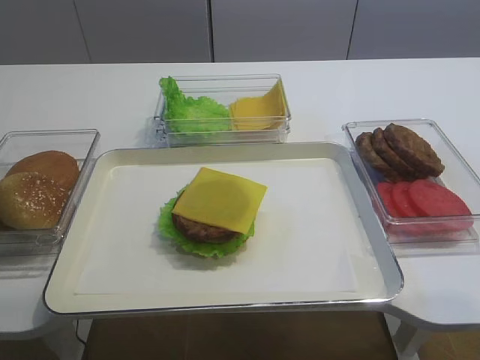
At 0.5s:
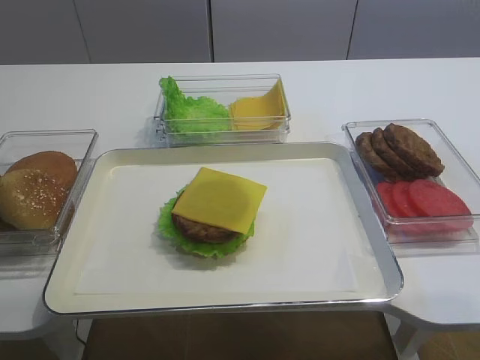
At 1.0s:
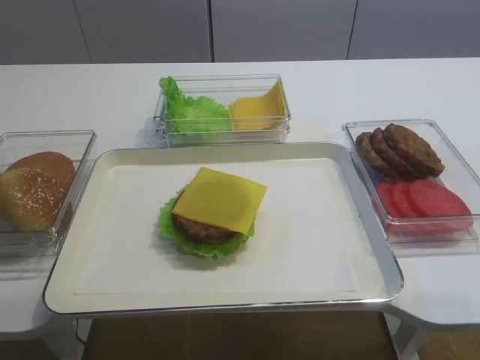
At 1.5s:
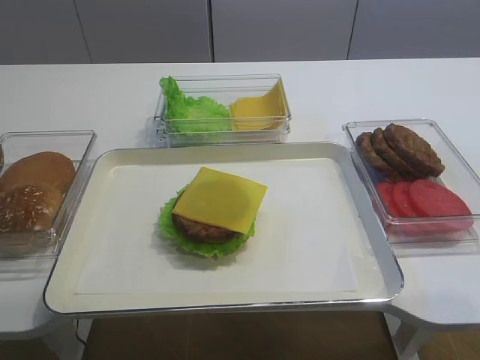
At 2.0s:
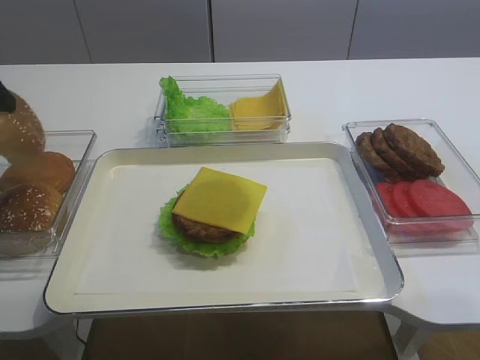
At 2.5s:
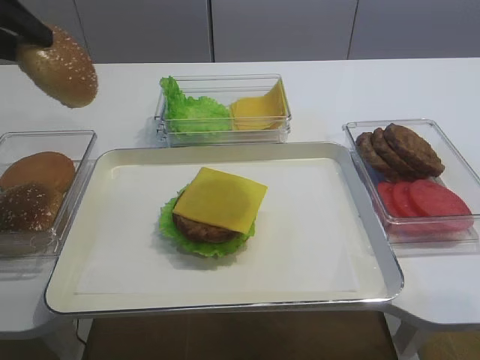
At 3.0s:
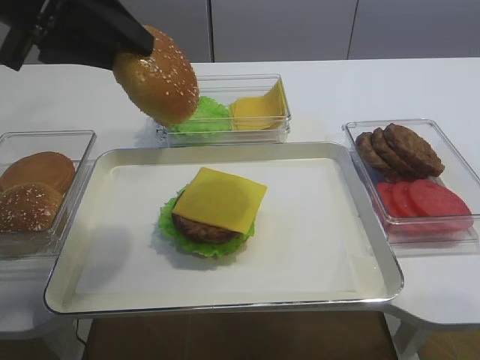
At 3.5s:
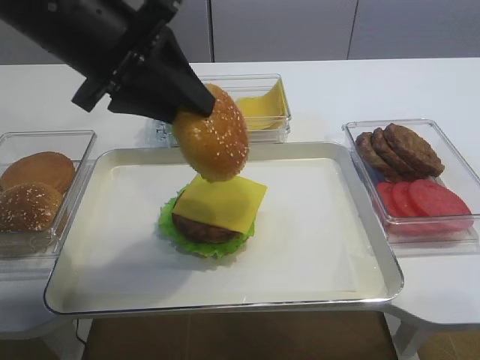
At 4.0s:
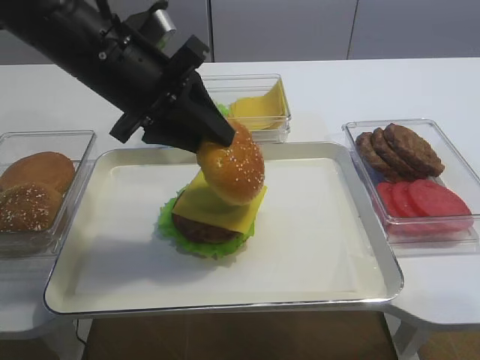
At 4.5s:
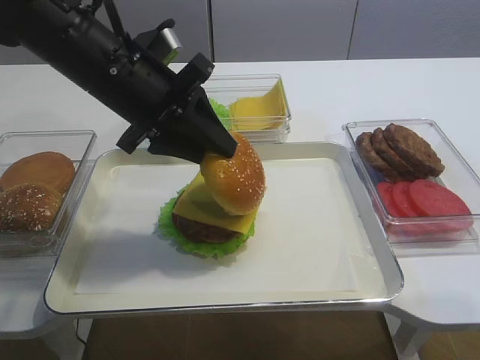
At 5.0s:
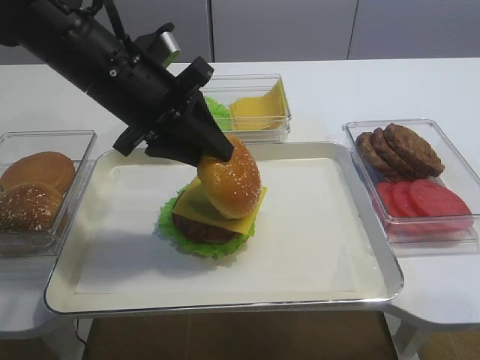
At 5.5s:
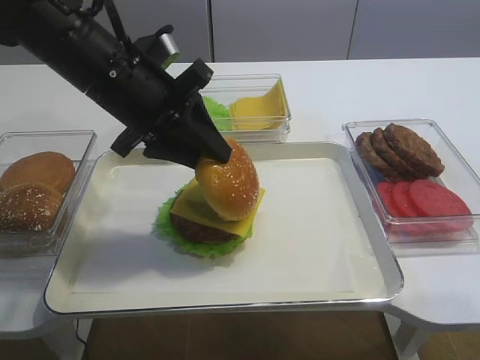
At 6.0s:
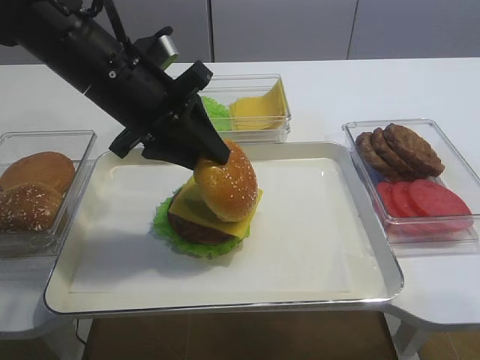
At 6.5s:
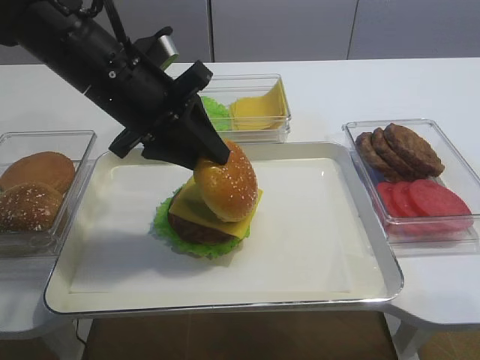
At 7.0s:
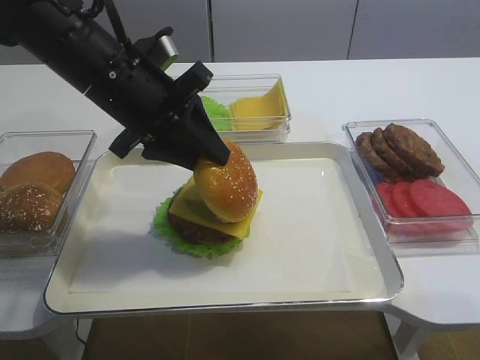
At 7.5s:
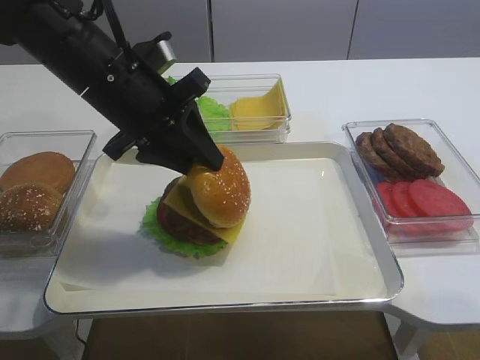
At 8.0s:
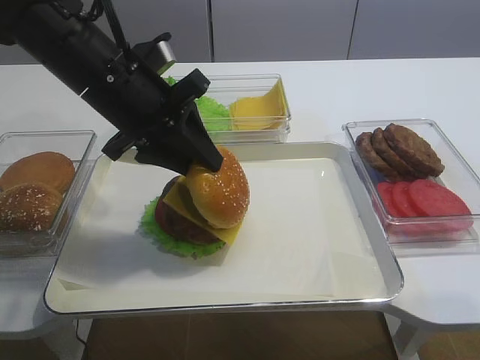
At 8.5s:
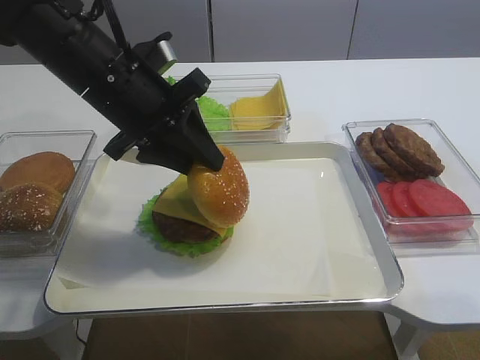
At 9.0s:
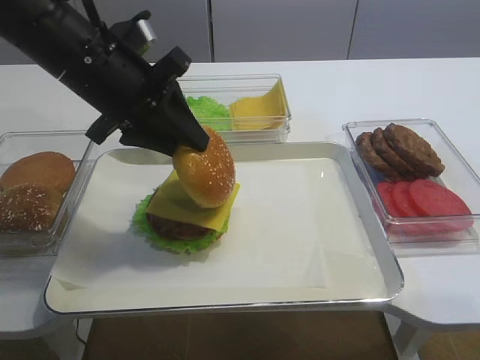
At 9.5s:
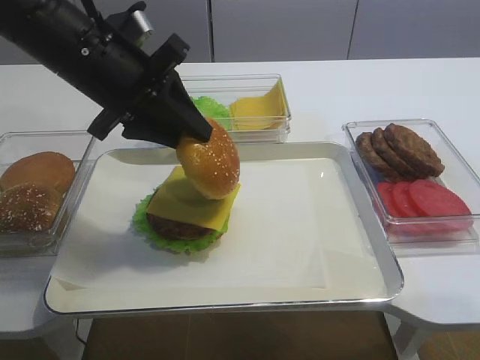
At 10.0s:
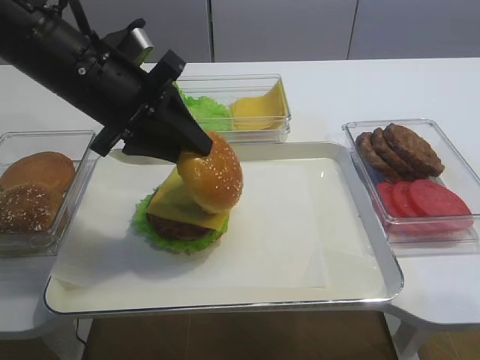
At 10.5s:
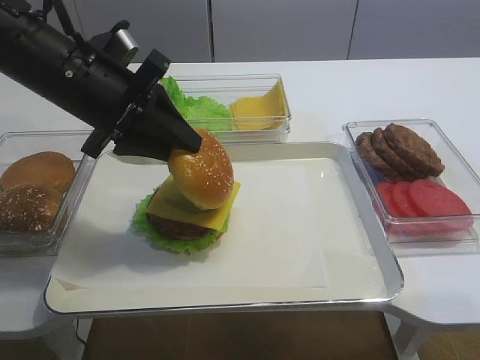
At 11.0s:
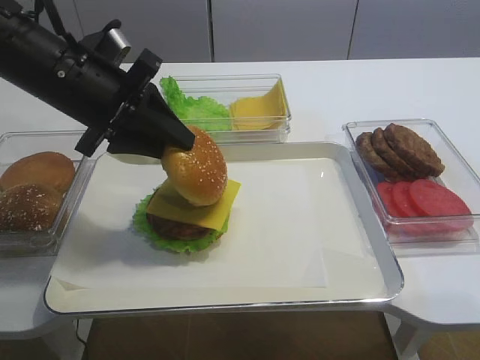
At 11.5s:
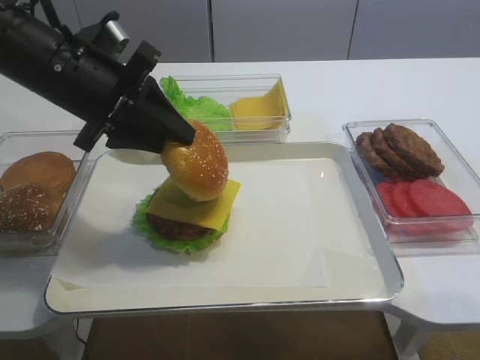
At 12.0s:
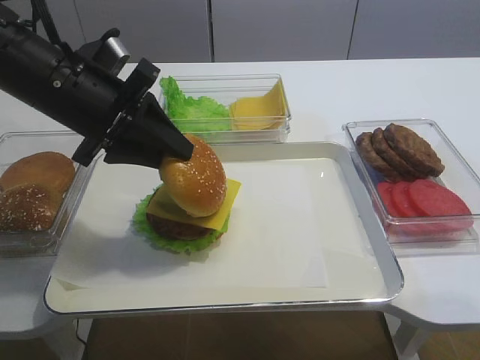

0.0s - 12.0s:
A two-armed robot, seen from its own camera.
Step, 0.0s - 2.0s: Pick up the hamburger lid with the left gripper.
0.0s - 2.0s: The left gripper is displaced upward by roughly 5 cm, and closes its fingers.
2.0s - 4.0s: The left gripper goes some 20 cm to the right.
4.0s - 6.0s: There are only small adjustments of the grippers.
6.0s - 8.0s: The two grippers keep their place.
8.0s - 12.0s: The grippers stay close to where they were, moving slightly.

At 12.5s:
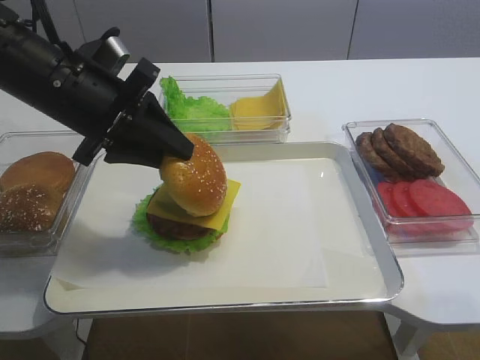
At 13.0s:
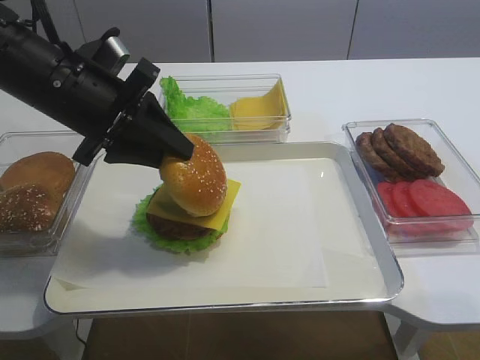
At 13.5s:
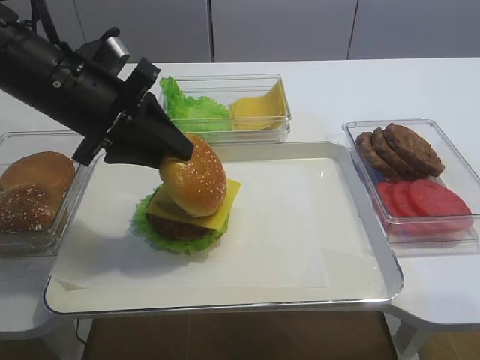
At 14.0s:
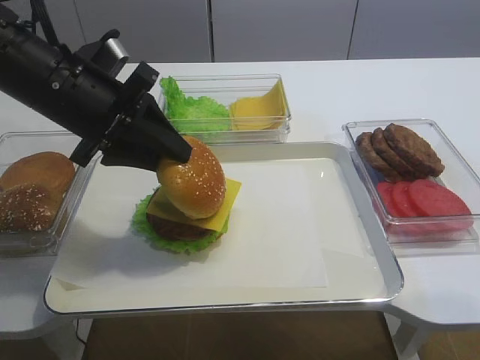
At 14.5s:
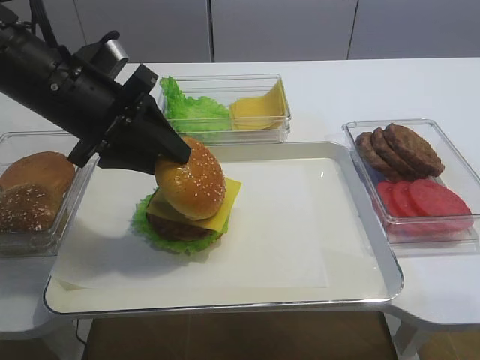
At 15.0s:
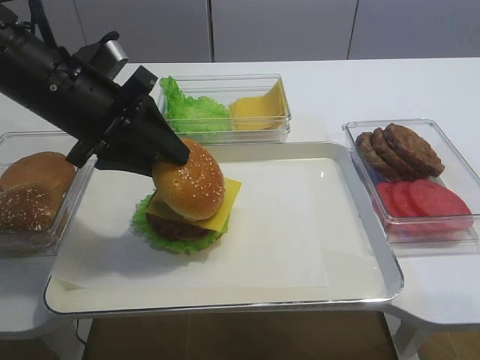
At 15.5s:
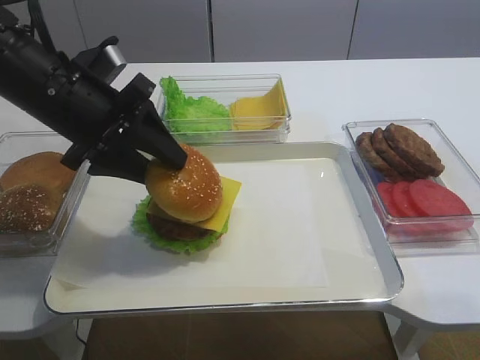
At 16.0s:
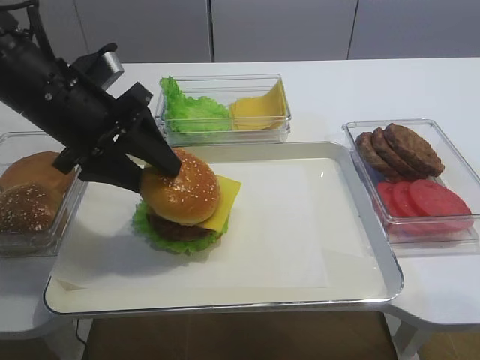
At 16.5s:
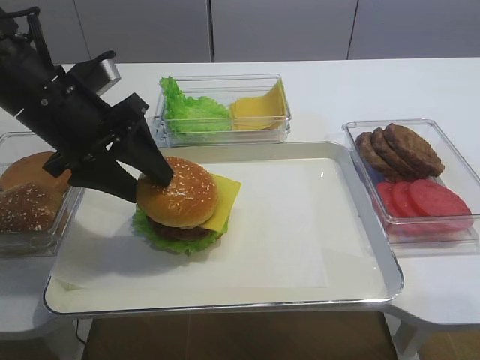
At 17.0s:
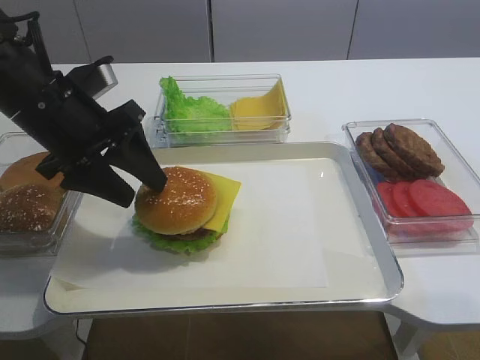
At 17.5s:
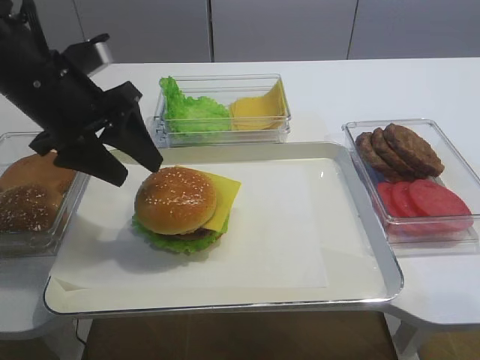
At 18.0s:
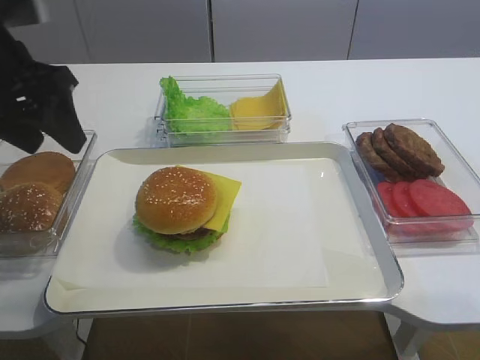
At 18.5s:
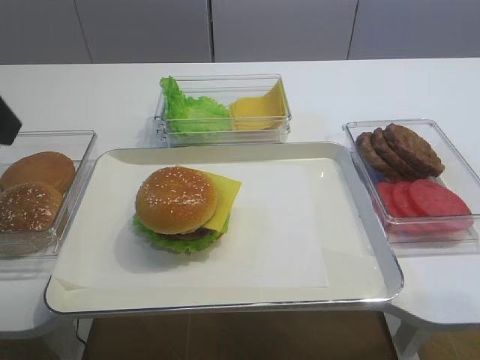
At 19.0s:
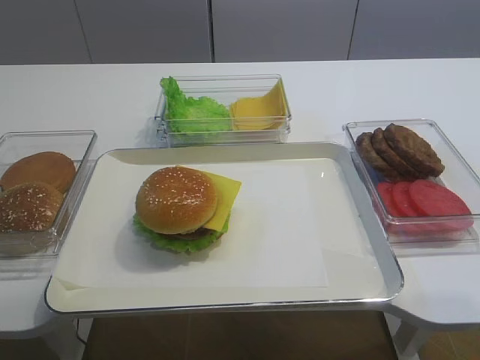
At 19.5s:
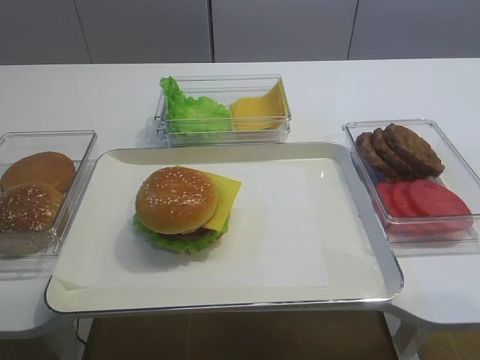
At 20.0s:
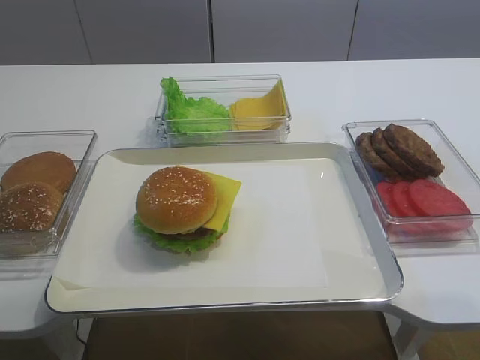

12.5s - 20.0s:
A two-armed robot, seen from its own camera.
Step, 12.5s - 17.0s: Place the hamburger lid on the cheese slice with the left gripper.
12.5s - 14.5s: Both grippers stay put.
14.5s - 16.5s: The left gripper opens its fingers.
16.5s - 18.0s: The left gripper shifts some 5 cm upward.
18.0s - 20.0s: The left gripper heads backward, covering roughly 30 cm.

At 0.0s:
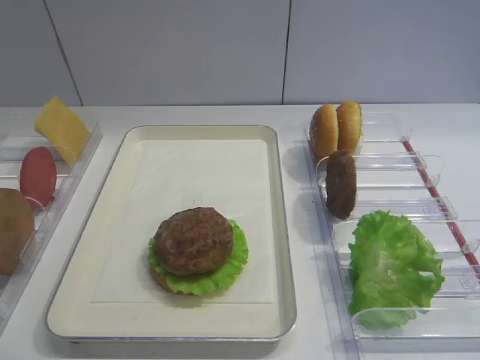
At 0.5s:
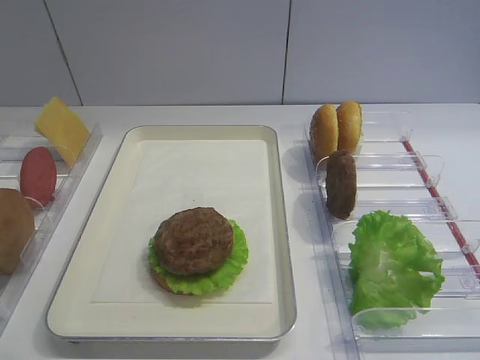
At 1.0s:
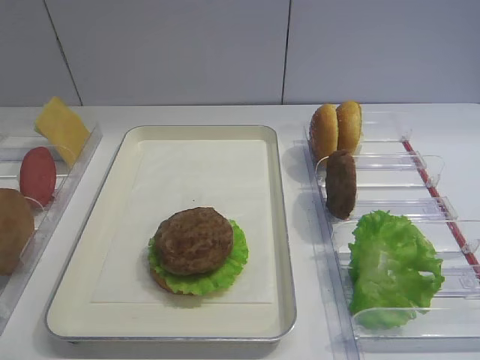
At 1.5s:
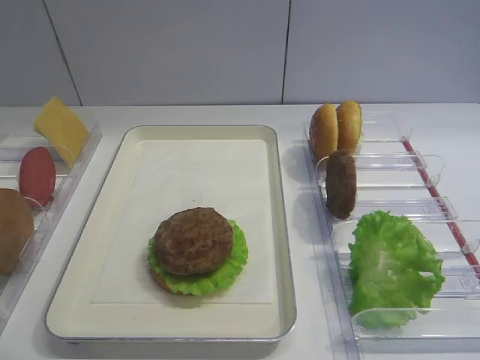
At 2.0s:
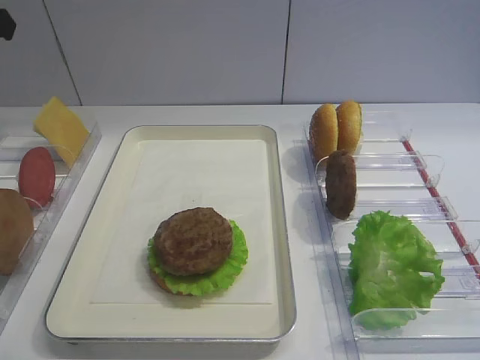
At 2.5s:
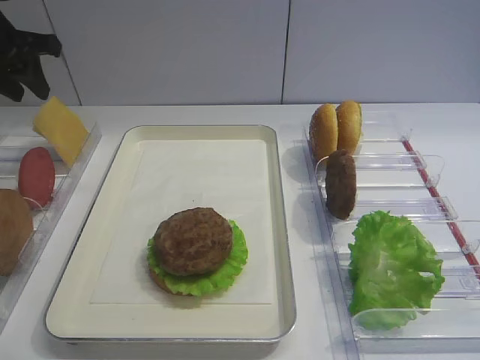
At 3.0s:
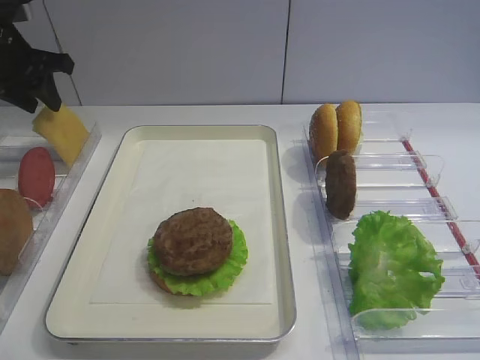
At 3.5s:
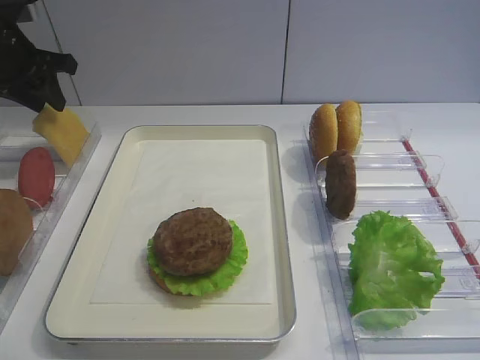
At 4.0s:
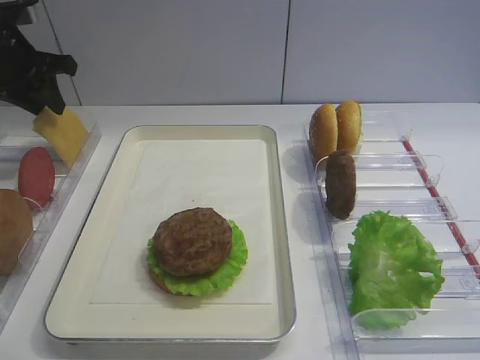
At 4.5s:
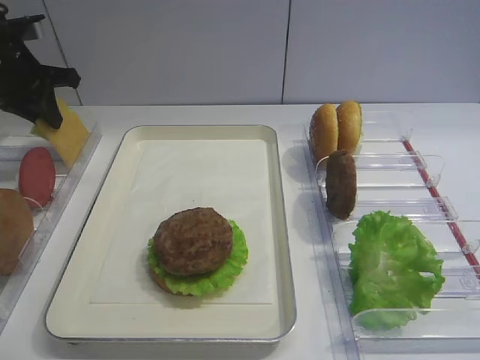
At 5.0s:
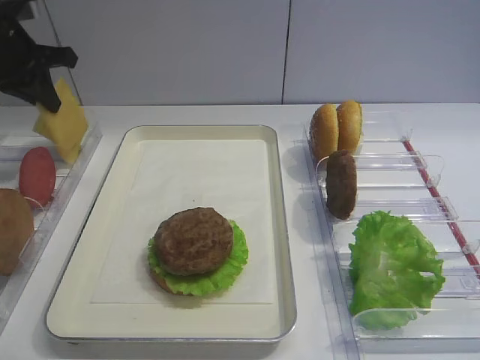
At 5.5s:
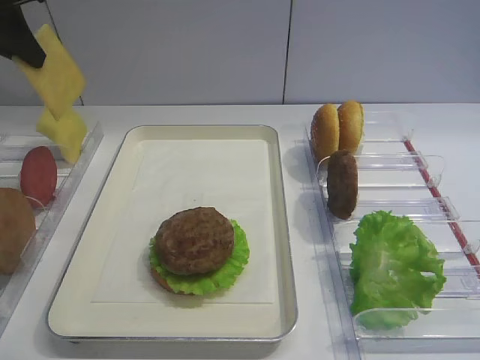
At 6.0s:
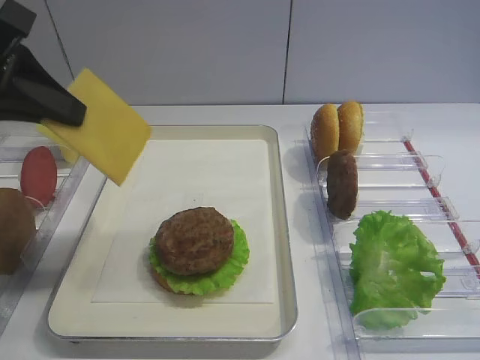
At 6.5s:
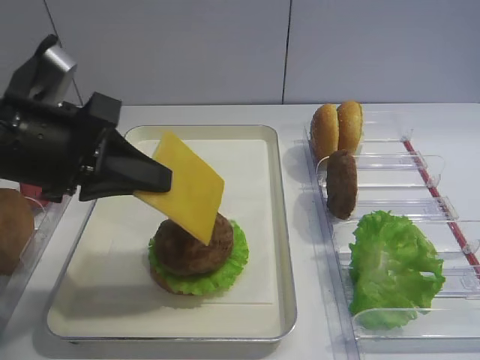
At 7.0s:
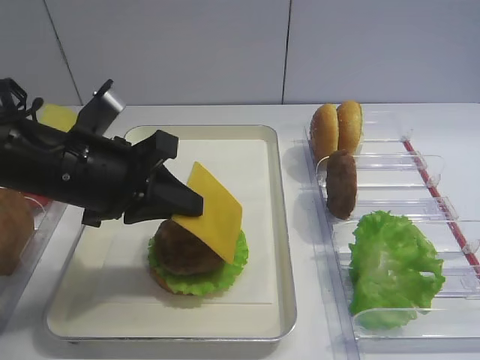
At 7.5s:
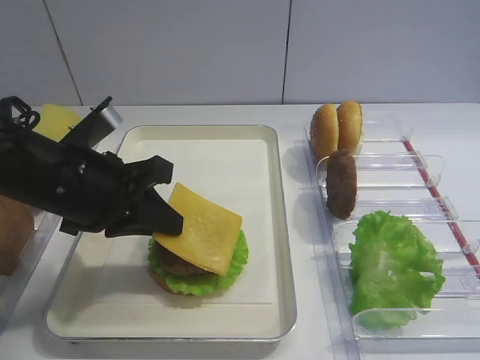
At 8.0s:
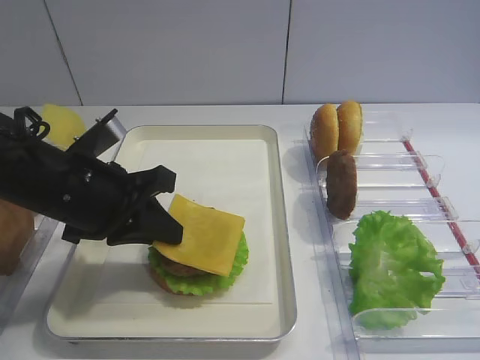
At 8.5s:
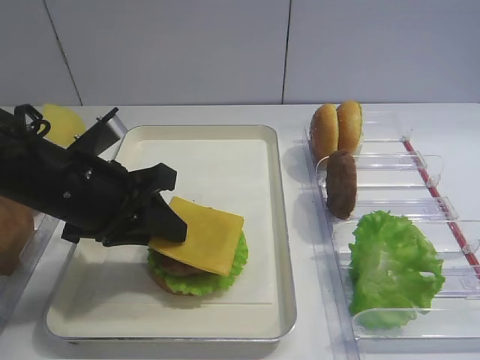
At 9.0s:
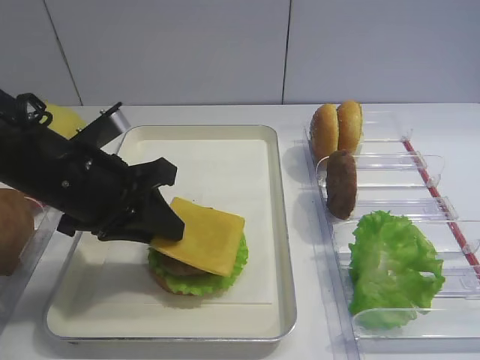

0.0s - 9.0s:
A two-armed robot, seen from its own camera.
Step, 0.0s - 5.5s: Pick up the cheese slice with the left gripper.
2.0s - 4.5s: The left gripper heads forward and downward, covering about 15 cm, and closes.
4.5s - 7.0s: The left gripper shifts roughly 25 cm backward and to the right.
7.0s - 9.0s: The left gripper opens.
